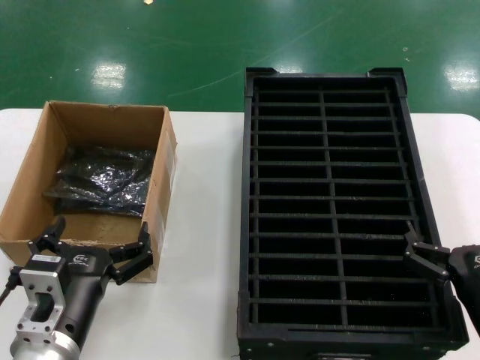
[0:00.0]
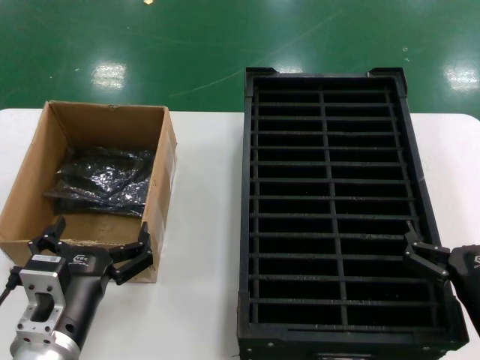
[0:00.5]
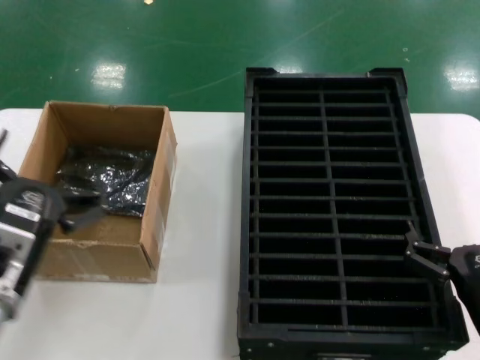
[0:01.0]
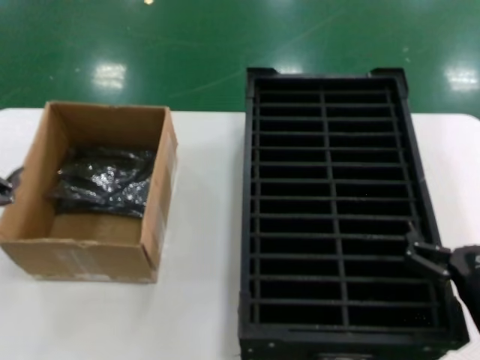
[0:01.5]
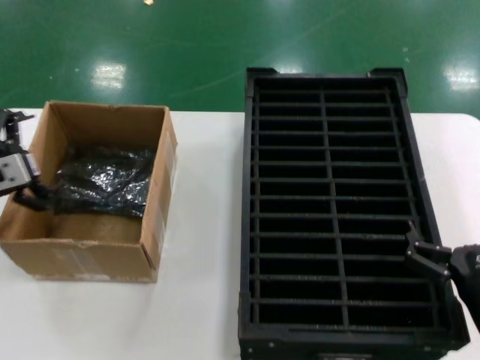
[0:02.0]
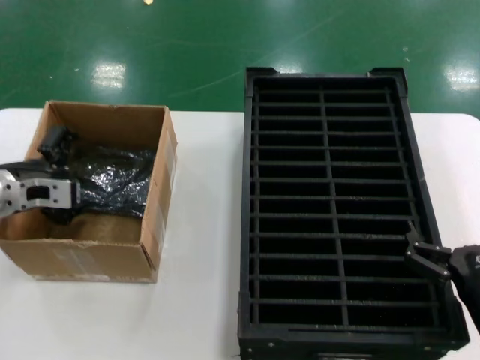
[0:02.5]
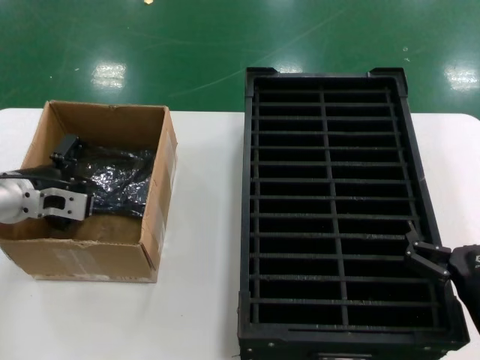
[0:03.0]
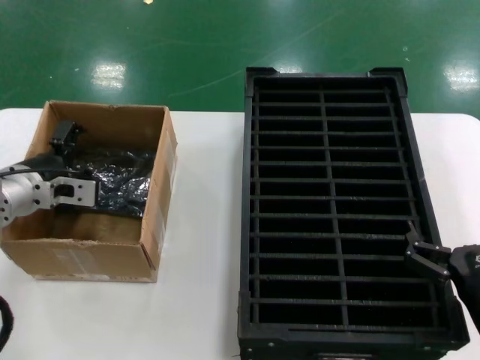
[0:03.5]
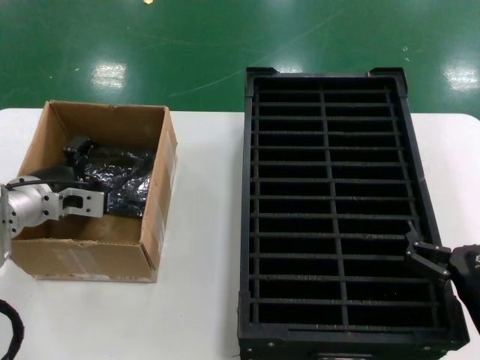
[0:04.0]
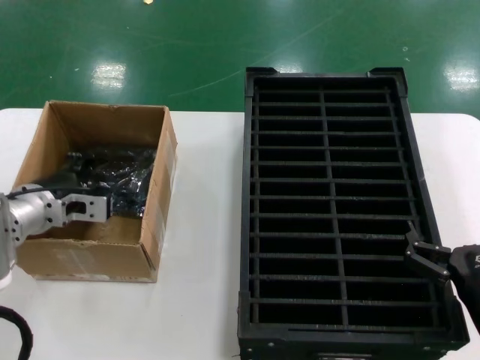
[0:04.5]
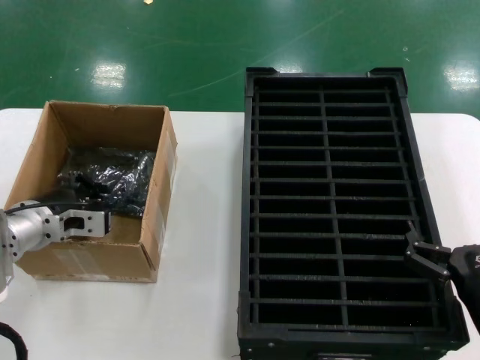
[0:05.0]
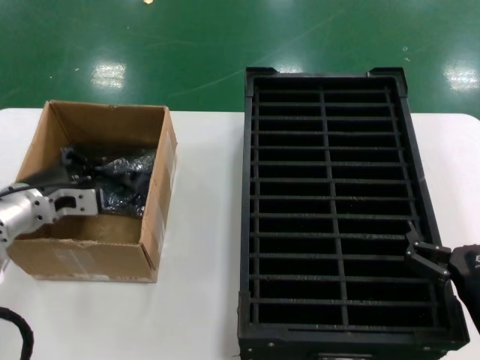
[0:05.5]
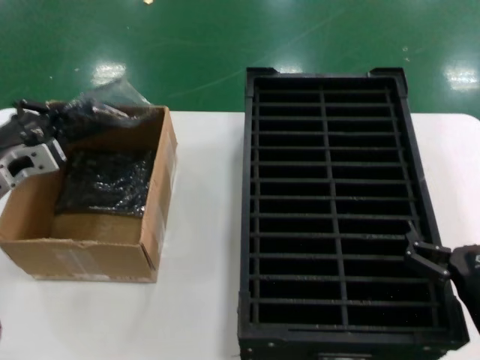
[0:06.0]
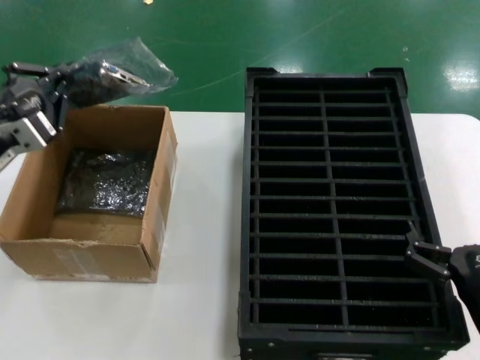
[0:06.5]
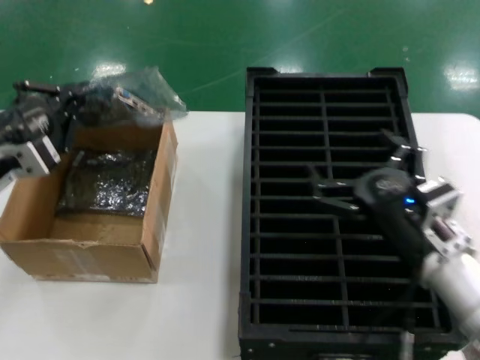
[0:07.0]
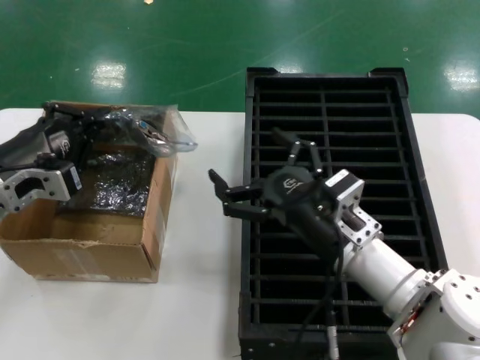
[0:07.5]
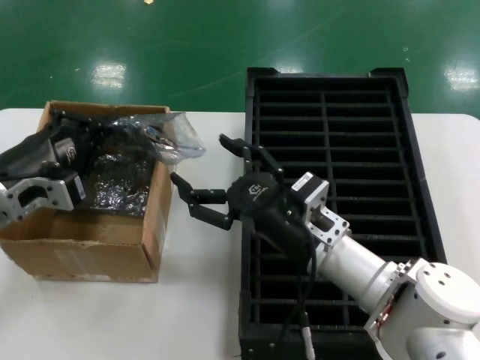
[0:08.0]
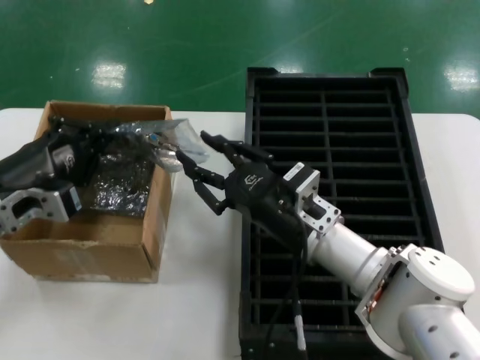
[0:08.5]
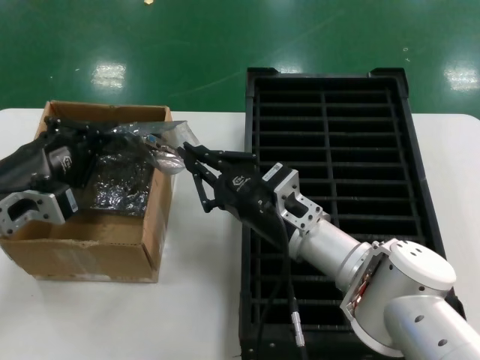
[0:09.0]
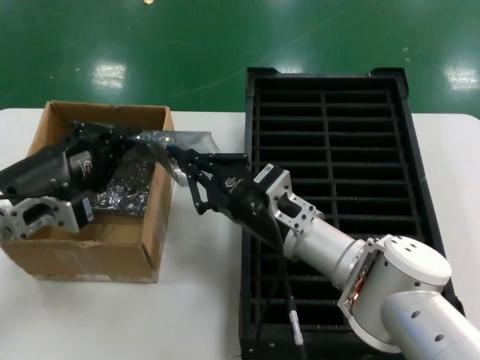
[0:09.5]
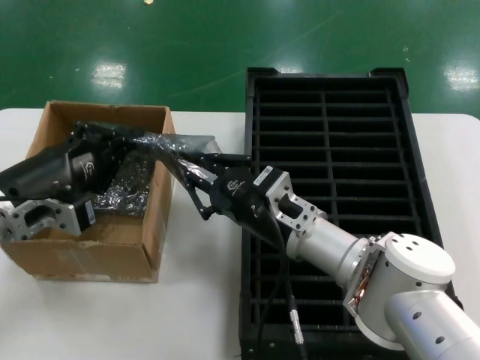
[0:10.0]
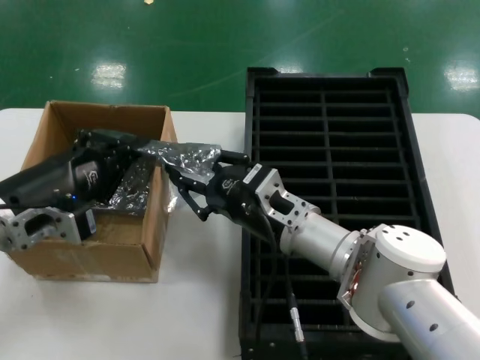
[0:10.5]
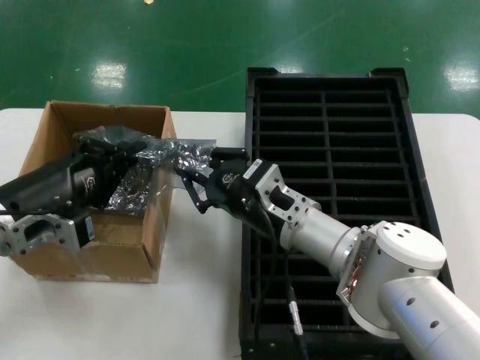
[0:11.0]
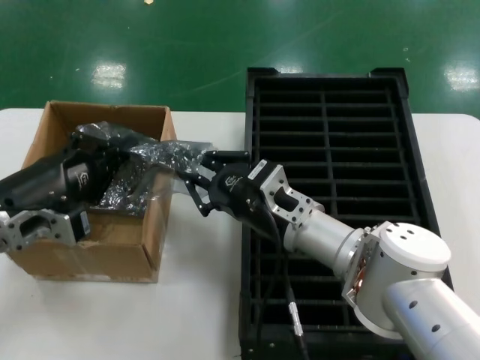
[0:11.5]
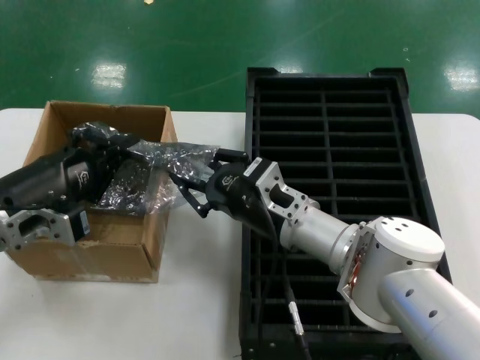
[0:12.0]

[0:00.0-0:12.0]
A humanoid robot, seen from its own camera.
Task of the whole recording: take out graphics card from box remove packaging put into black container.
Step, 0:00.0 to 0:04.5: Grasp the bag.
Step, 0:05.0 to 0:06.5: Lift the bag.
0:00.0 to 0:02.0: The left hand travels to the left, forward and upward by approximately 30 cm.
0:02.0 to 0:04.0: The left hand heads to the right, forward and downward, covering roughly 10 cm.
0:04.0 to 0:06.0: The left hand ends up approximately 5 cm from where it was.
0:06.0 to 0:08.0: The left hand moves backward, roughly 5 cm, while the right hand goes roughly 20 cm to the left and forward.
0:10.0 to 0:12.0: There are only small adjustments of the hands.

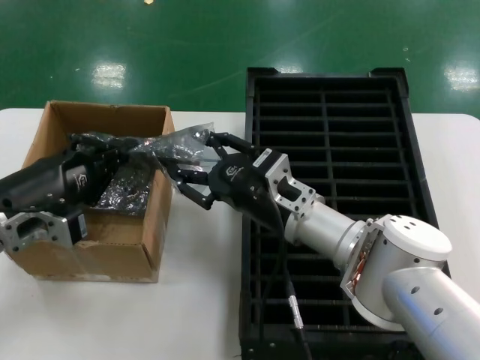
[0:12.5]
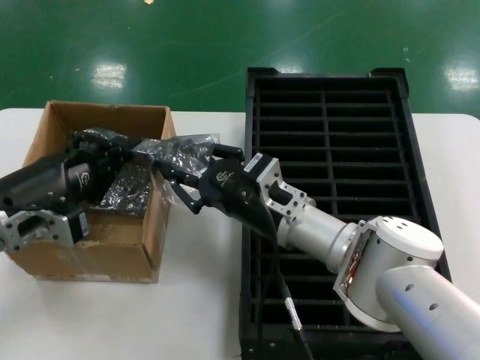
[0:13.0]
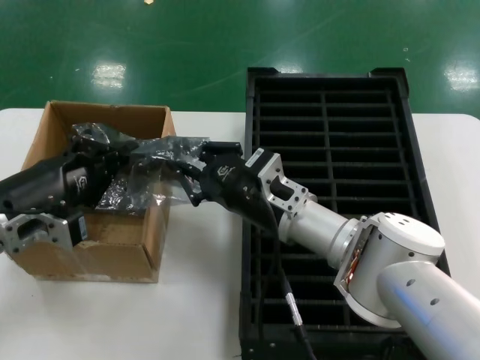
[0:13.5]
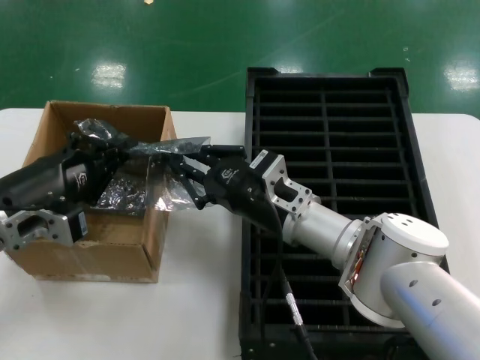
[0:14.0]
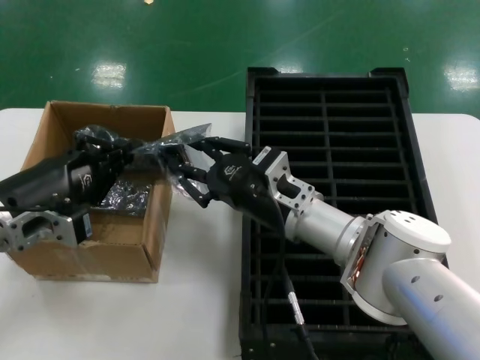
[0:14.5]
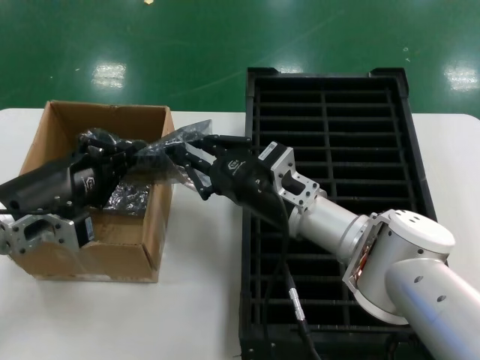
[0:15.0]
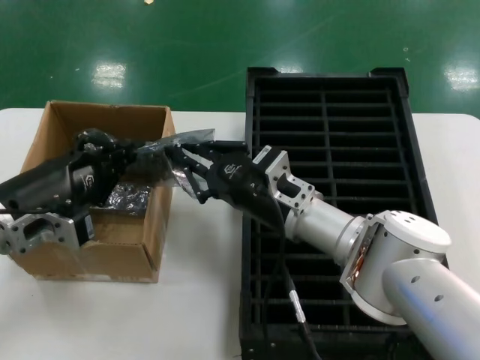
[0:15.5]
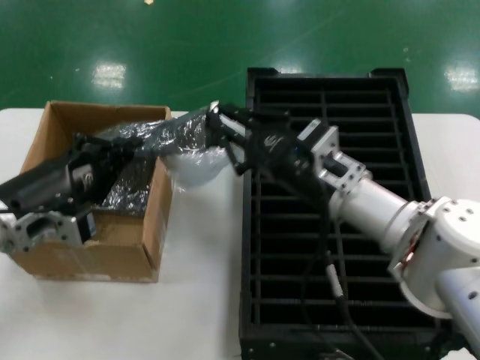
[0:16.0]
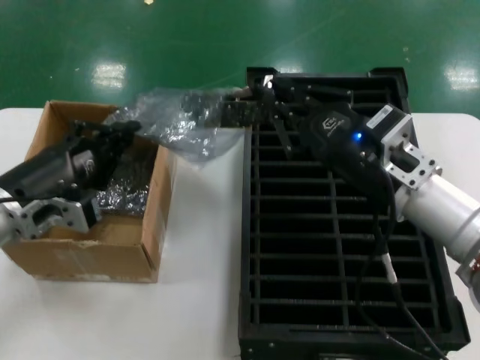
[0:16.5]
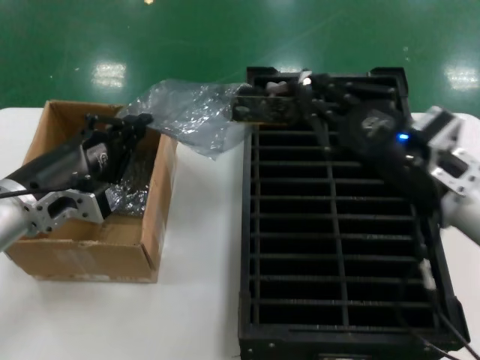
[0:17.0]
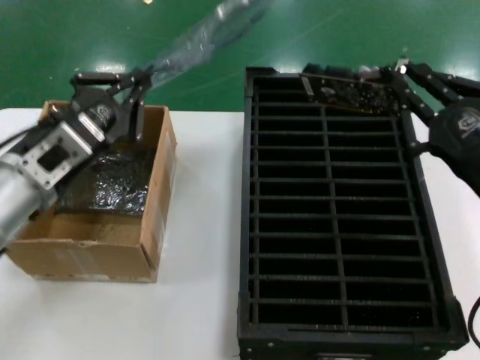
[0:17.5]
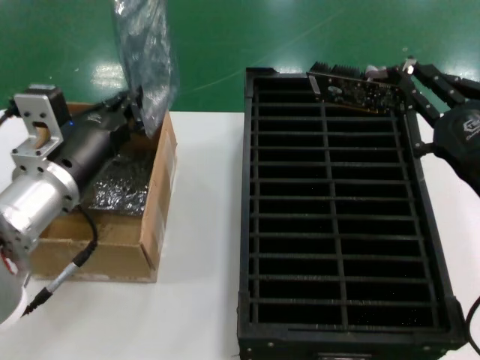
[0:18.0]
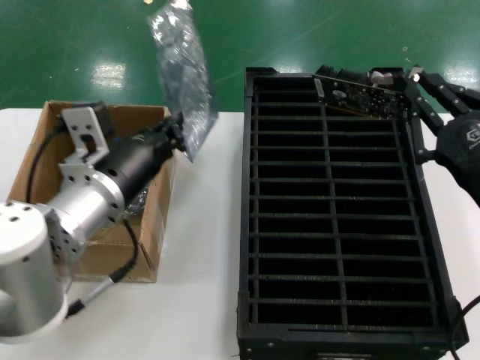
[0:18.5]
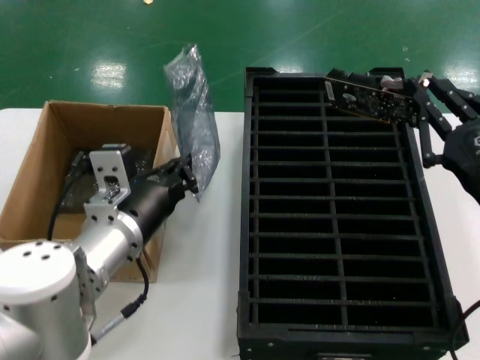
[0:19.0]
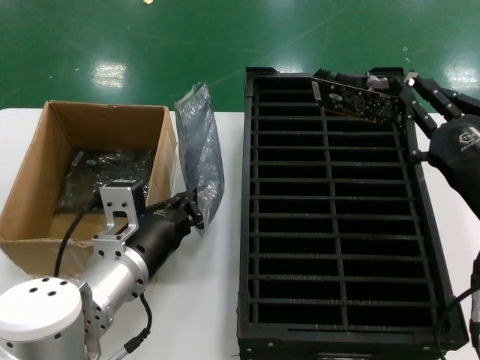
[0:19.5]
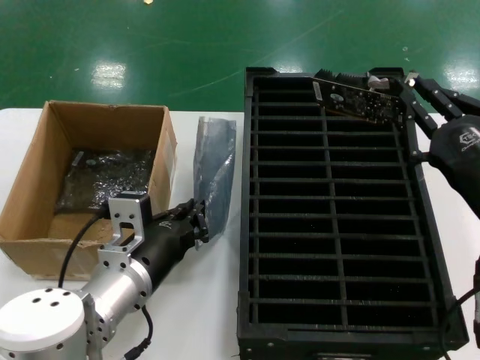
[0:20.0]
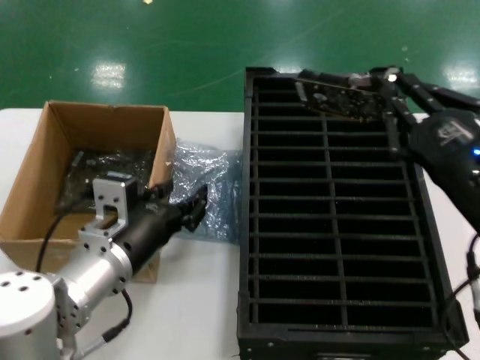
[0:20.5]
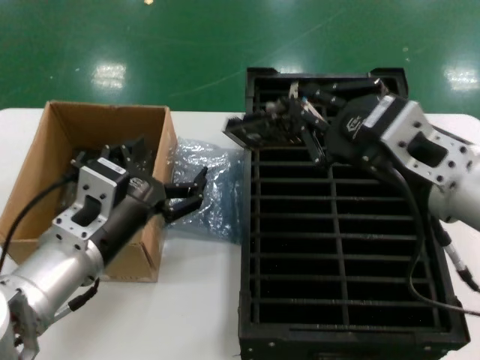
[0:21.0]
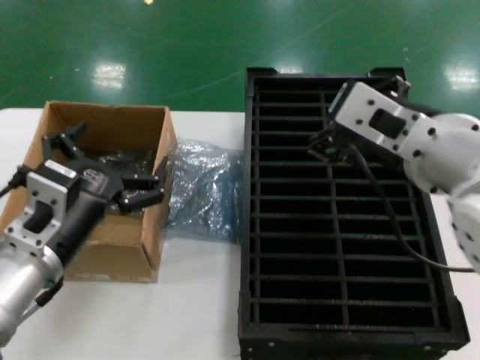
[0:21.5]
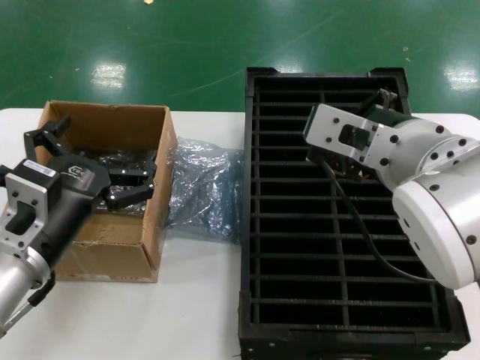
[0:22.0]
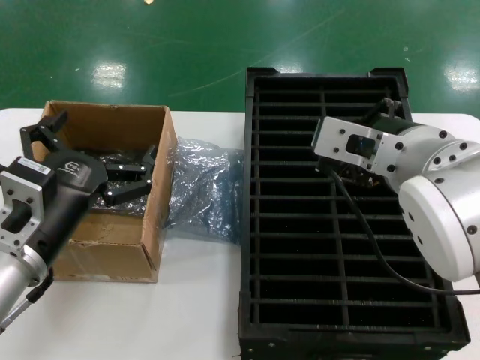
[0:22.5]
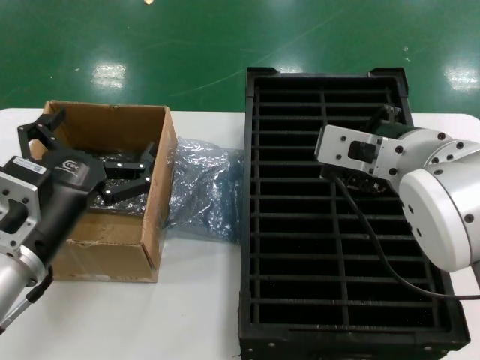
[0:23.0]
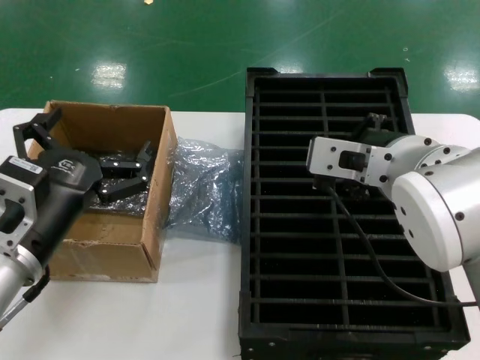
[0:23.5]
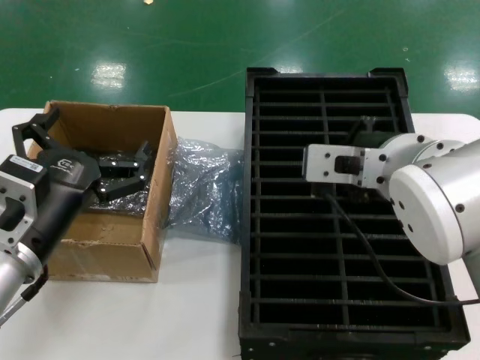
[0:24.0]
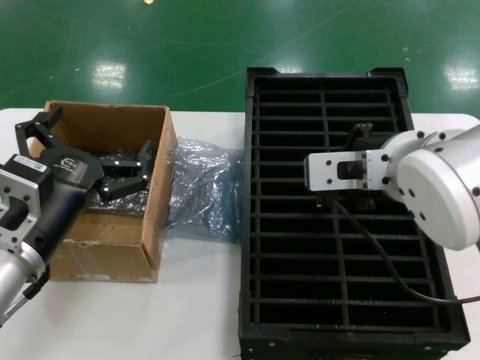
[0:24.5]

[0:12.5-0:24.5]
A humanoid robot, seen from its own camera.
Task of the whole recording: take out graphics card from box remove packaging put into black container.
Step, 0:12.5 to 0:17.0: Take out the hard disk of the bag.
Step, 0:17.5 to 0:21.0: Place the down the bag.
0:12.5 to 0:14.5: Neither hand changes place.
0:14.5 to 0:16.5: The right hand is displaced to the right, upward and backward by some 15 cm.
0:16.5 to 0:18.5: The left hand travels to the right by roughly 10 cm. The right hand travels to the right and backward by approximately 15 cm.
0:18.5 to 0:20.5: The left hand heads downward, covering approximately 5 cm.
0:20.5 to 0:22.5: The left hand shifts roughly 5 cm to the left; the right hand is displaced to the left and upward by roughly 15 cm.

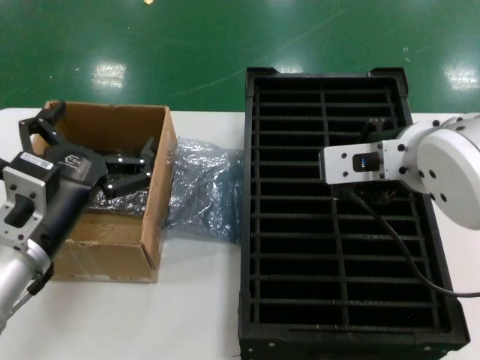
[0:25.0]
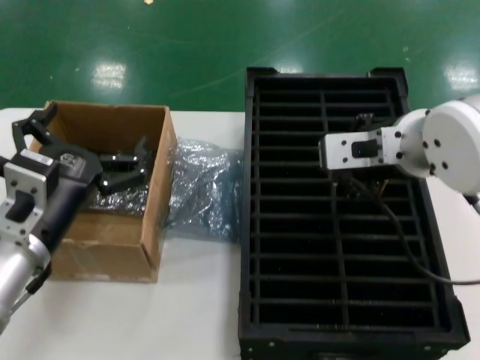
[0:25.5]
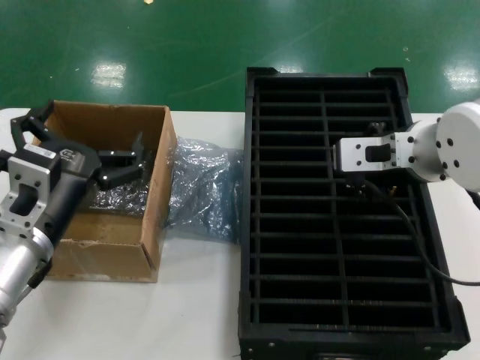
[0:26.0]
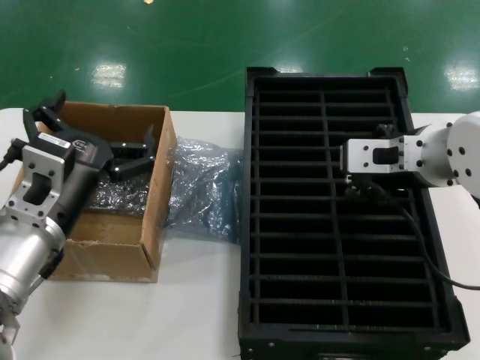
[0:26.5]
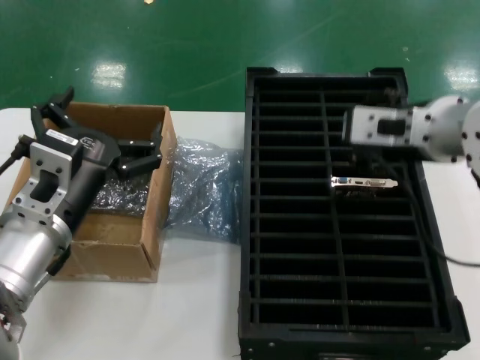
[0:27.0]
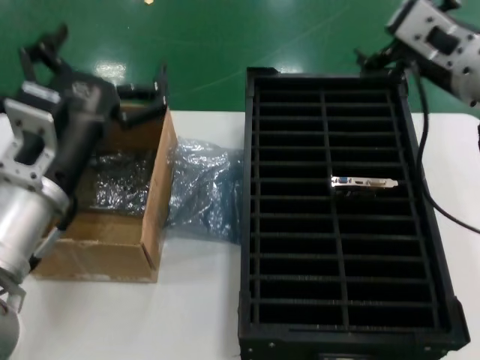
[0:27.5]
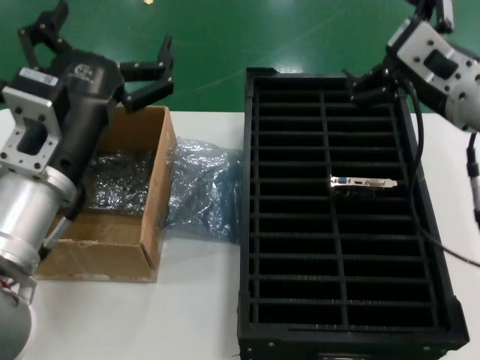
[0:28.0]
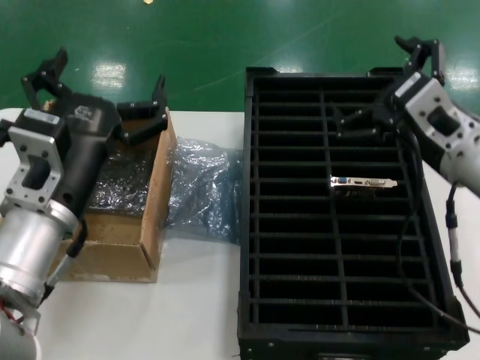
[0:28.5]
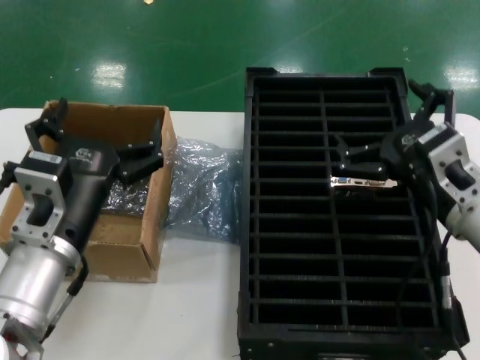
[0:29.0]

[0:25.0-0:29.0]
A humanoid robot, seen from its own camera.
Task of the whole recording: take out graphics card from box remove packaging put into black container.
Step, 0:25.0 to 0:27.0: Place the hard disk in the hard disk enclosure.
0:25.0 to 0:27.0: The right hand shifts some 5 cm forward.
0:27.0 to 0:29.0: The right hand is displaced downward, backward and to the right by about 15 cm.
